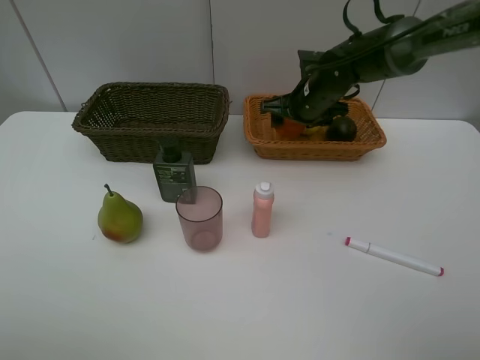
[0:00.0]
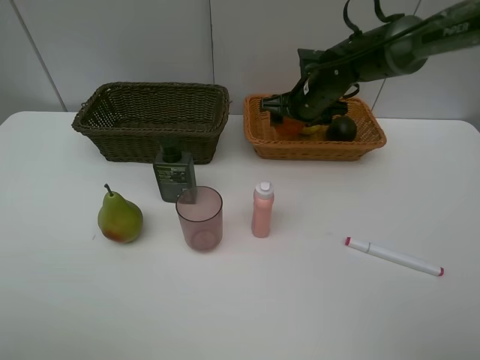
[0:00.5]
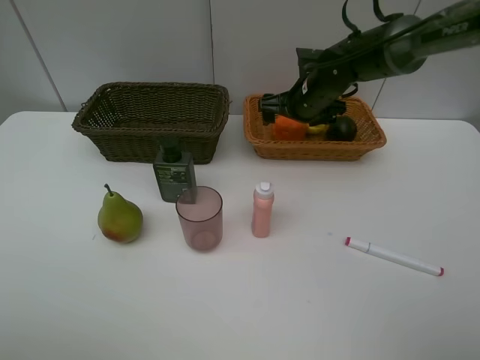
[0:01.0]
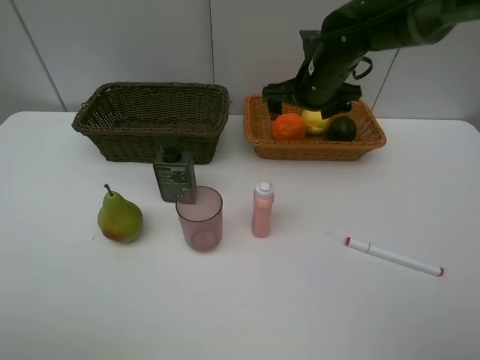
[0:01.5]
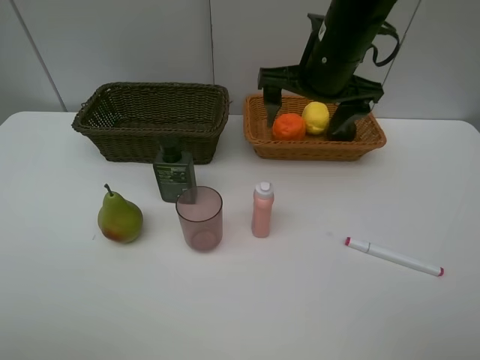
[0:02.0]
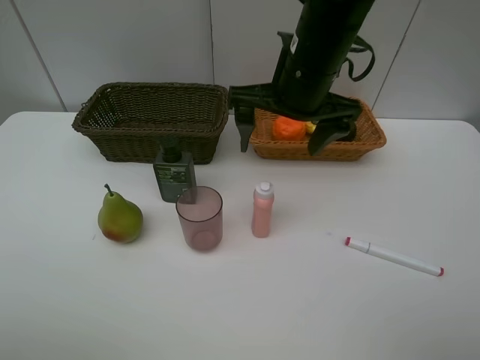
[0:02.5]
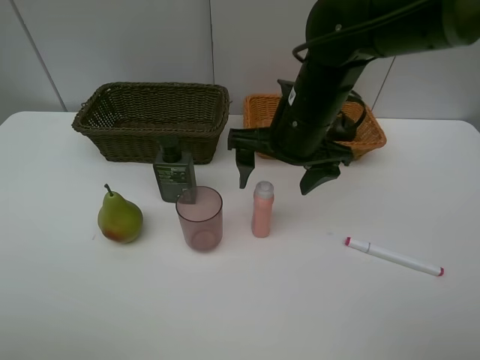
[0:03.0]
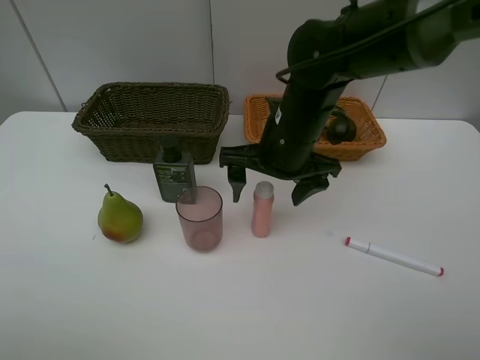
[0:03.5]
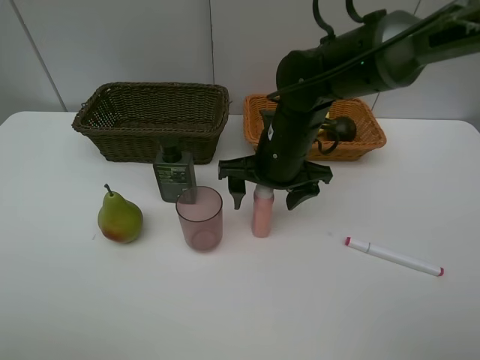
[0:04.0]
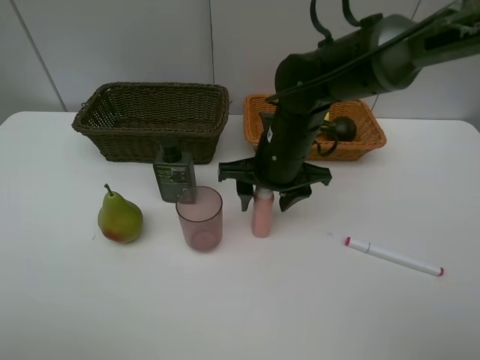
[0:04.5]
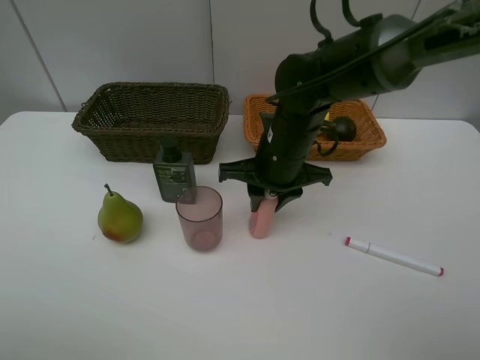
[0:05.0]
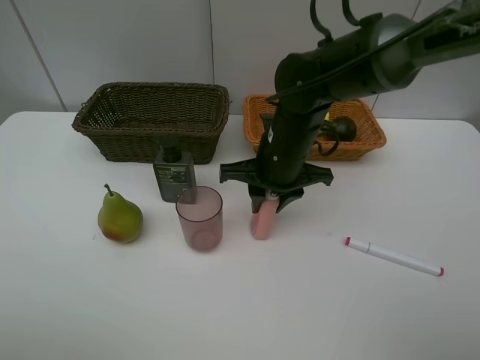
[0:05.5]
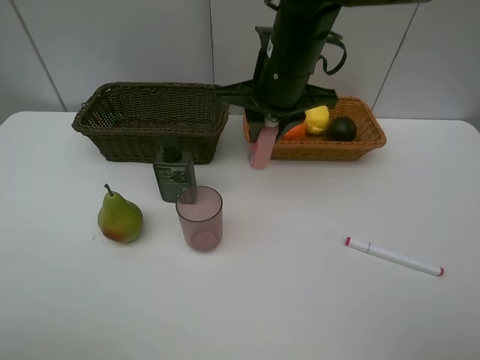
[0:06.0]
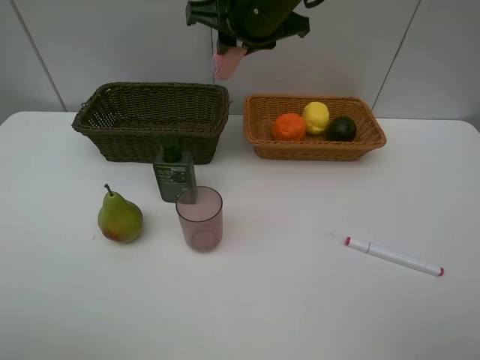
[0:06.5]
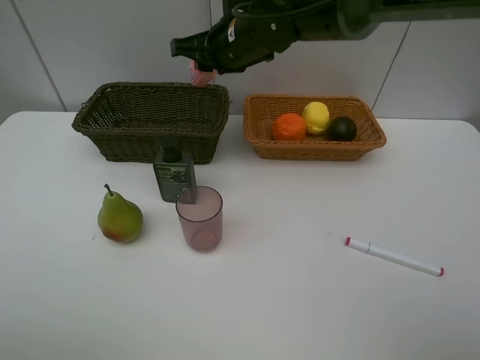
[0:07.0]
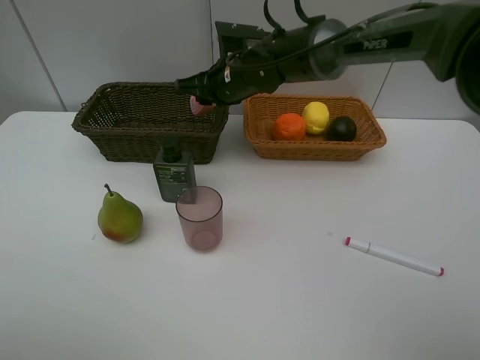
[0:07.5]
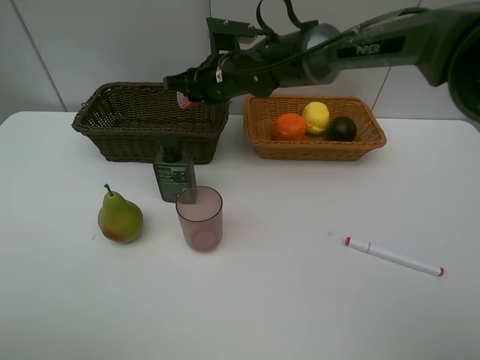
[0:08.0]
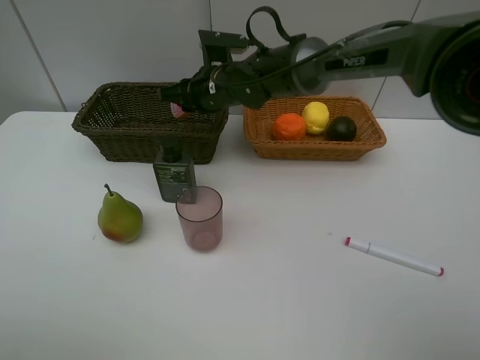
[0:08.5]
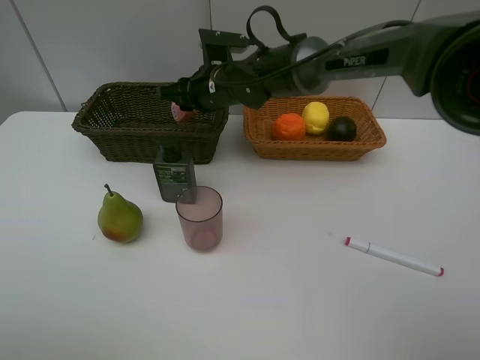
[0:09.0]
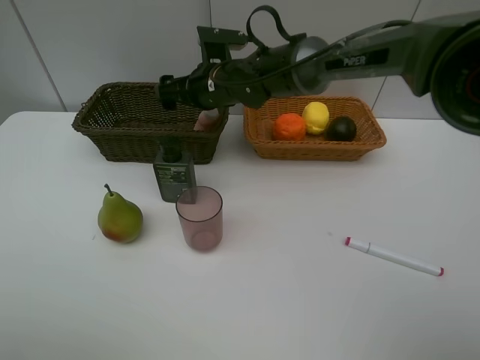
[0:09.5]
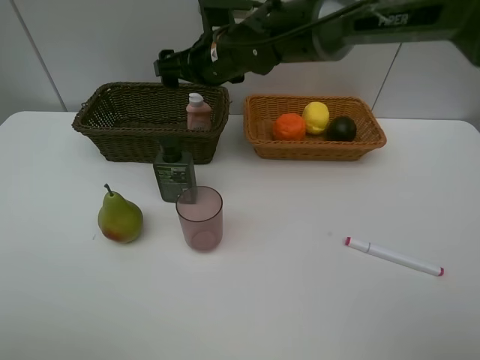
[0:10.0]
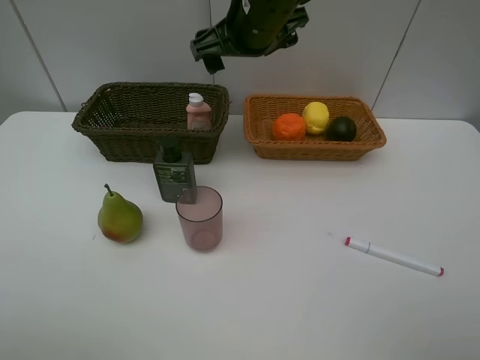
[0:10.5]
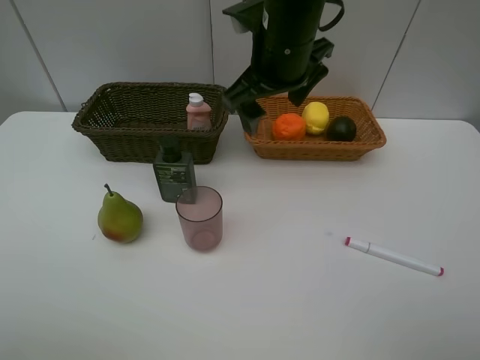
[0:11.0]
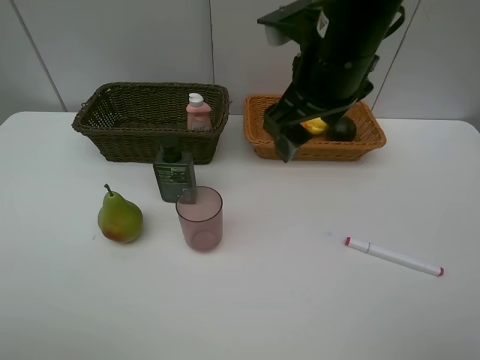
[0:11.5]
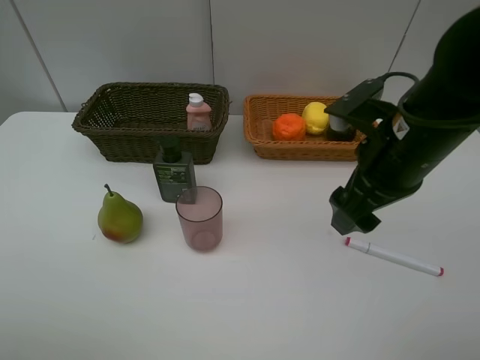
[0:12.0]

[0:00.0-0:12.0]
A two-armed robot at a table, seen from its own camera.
Task of the whole recording: Place multiple objects separately in different baskets.
Step, 0:02.0 to 0:05.5: Pick up the laundry detergent with right gripper.
Step, 0:06.0 to 0:10.0: Place the laundry detergent in the dark basket with right gripper.
0:00.0 to 0:02.0: The right gripper travels upward and backward by some 15 cm.
0:02.0 to 0:04.0: The right gripper is displaced downward by approximately 10 cm.
0:04.0 to 0:06.0: The right gripper heads upward, covering about 10 cm, and closes.
0:06.0 to 0:08.0: The right gripper is displaced forward, downward and to the left by approximately 15 cm.
0:08.0 to 0:10.0: The right gripper travels upward by some 5 cm, and opens.
0:10.0 to 0:12.0: The right gripper travels backward and to the right by roughly 25 cm.

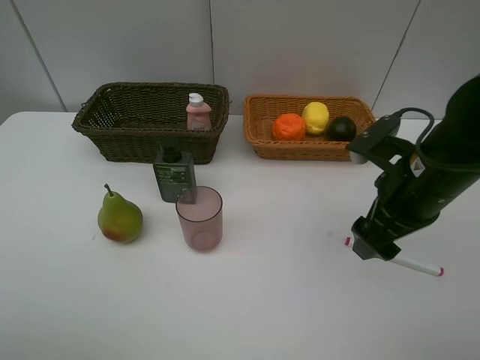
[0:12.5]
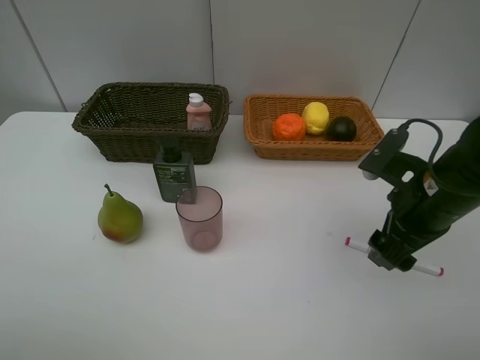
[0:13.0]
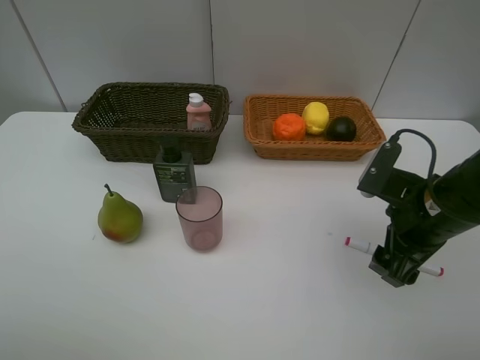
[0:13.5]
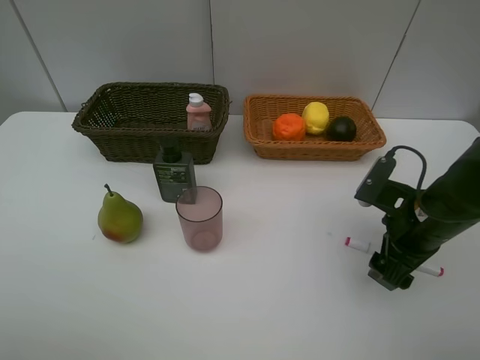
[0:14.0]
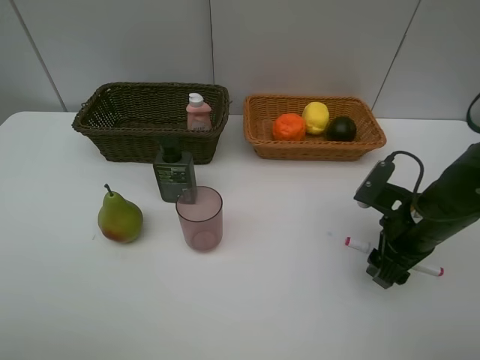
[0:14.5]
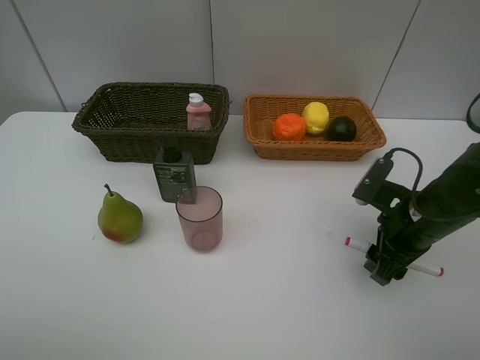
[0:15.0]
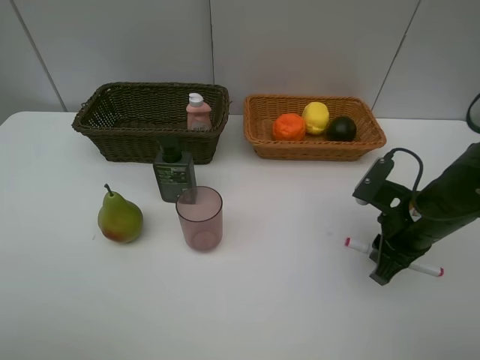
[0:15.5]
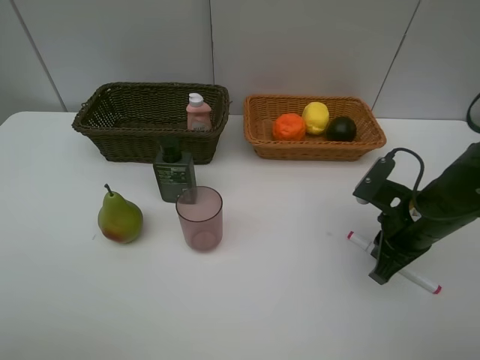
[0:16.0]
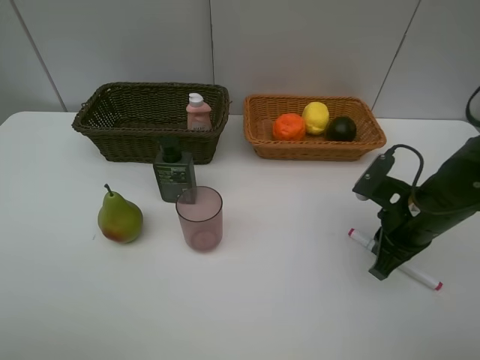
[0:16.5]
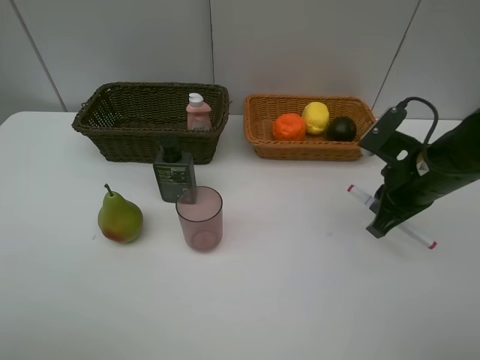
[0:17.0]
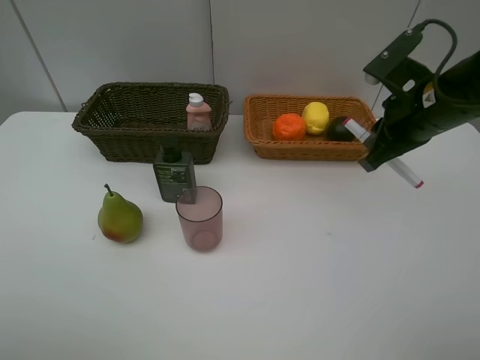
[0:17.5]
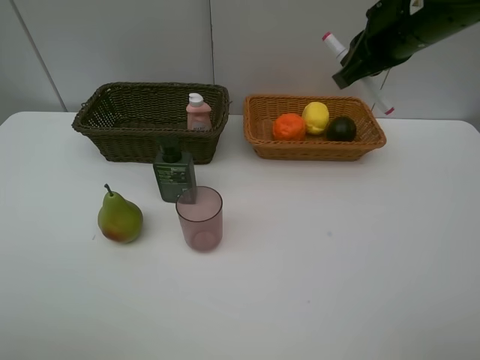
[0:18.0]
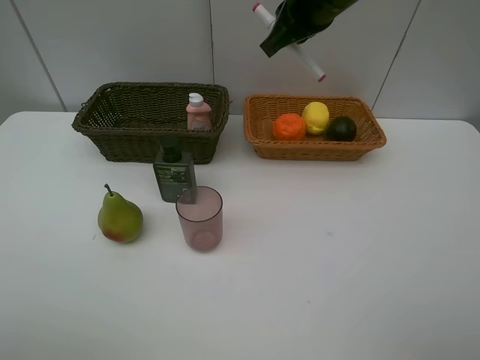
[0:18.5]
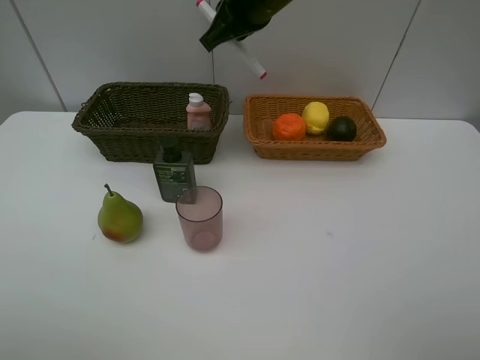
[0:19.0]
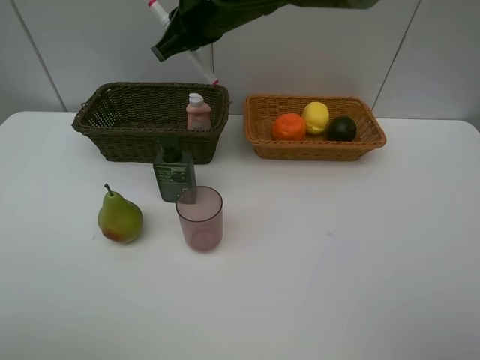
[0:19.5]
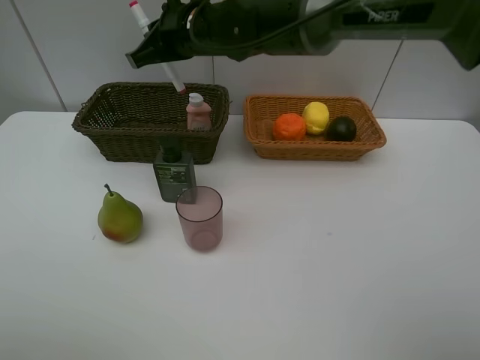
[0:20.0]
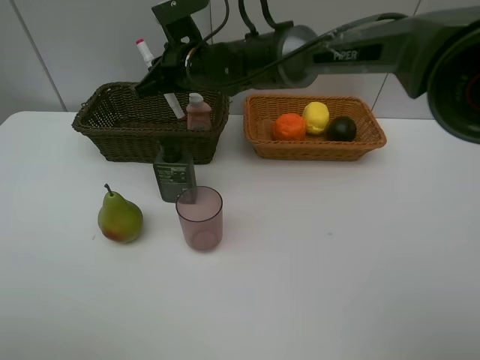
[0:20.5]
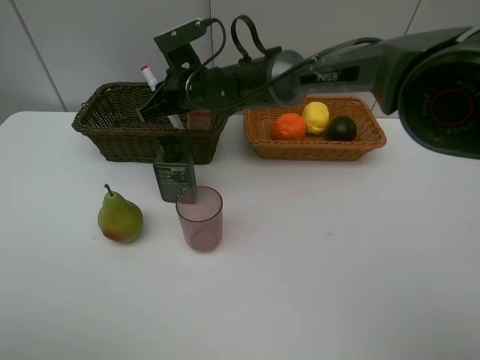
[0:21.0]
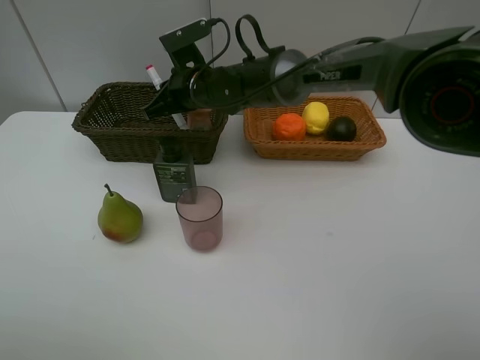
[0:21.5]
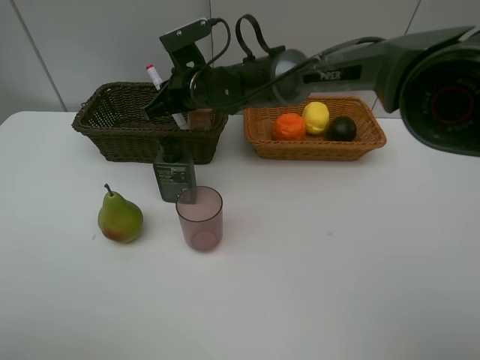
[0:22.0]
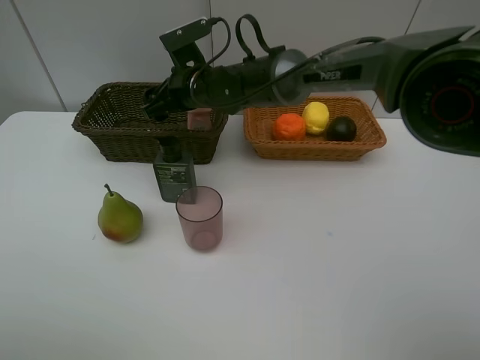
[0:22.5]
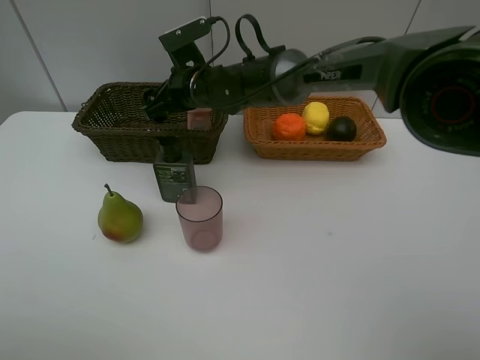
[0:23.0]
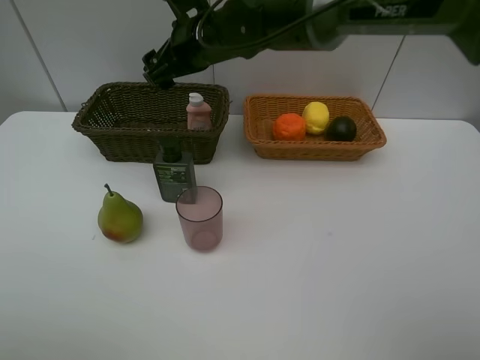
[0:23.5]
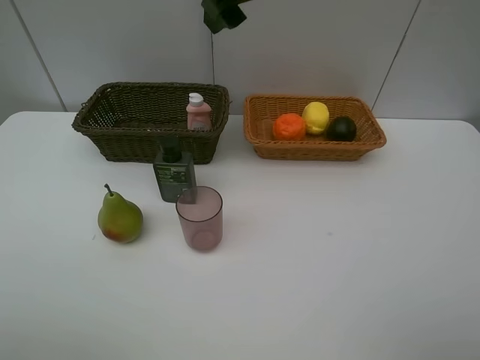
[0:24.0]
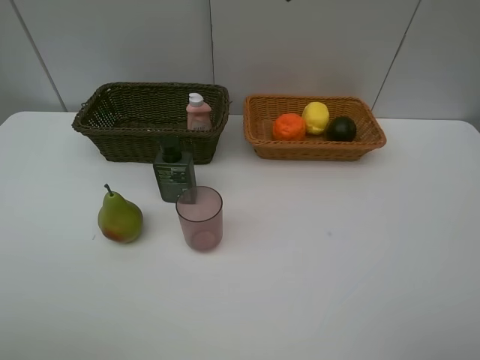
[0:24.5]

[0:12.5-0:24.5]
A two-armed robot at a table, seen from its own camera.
Task of the whole recording: Place multiple objects separately in different baskets.
Step, 0:12.5 to 0:16.5: Pick up the red marker with right gripper.
Step, 0:17.0 to 0:22.5: Place the red marker in the dark basket with right gripper.
0:12.5 to 0:14.5: The right gripper heads downward, covering approximately 10 cm.
0:14.5 to 0:16.5: The right gripper closes.
0:16.5 to 0:18.5: The right gripper is displaced upward, to the left and forward by some 30 cm.
0:18.5 to 0:20.5: The right gripper is displaced to the left and downward by about 20 cm.
0:20.5 to 0:22.5: The right gripper opens its fingers.
0:22.5 to 0:24.5: The right gripper moves upward, to the right and backward, some 35 cm.

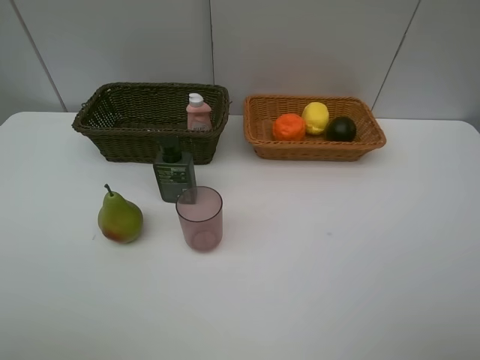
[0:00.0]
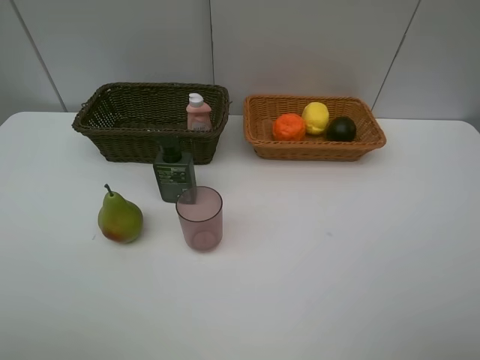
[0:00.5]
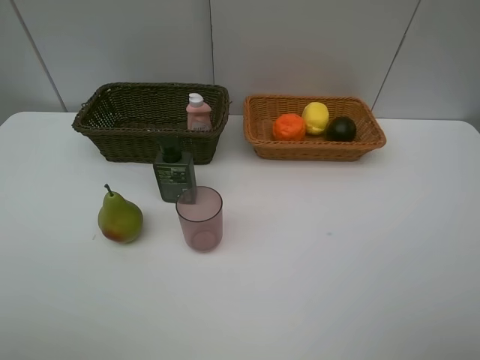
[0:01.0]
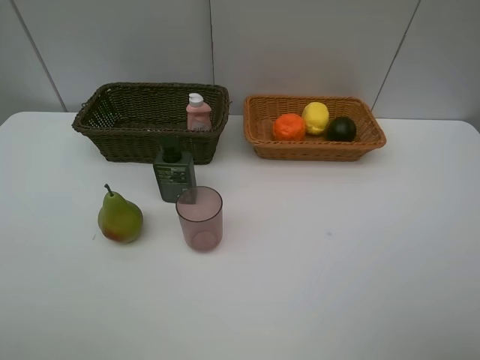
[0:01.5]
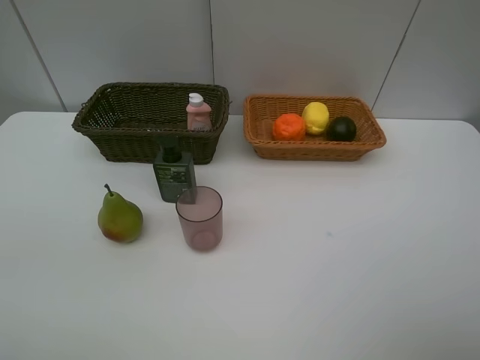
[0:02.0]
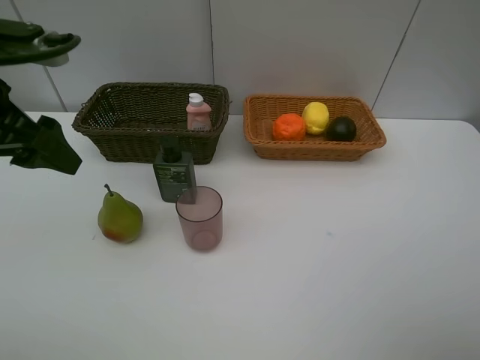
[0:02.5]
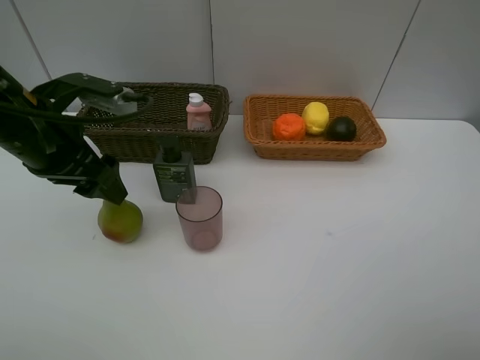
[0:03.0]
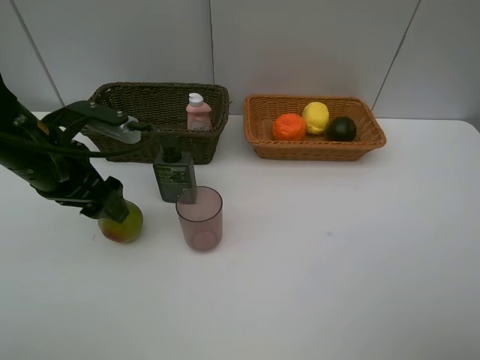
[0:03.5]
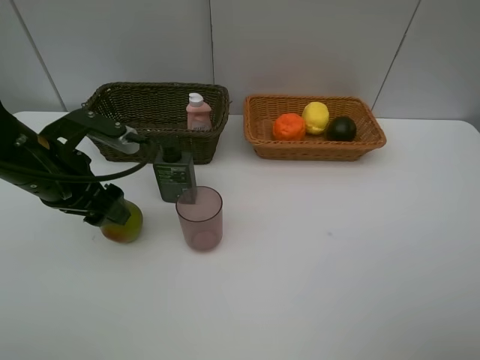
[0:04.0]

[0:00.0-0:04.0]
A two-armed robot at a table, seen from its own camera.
Task of the whole recording: Place multiple objects separately in different baskets.
0:02.0 to 0:04.0: The left gripper shifts about 20 cm downward, to the right and forward.
